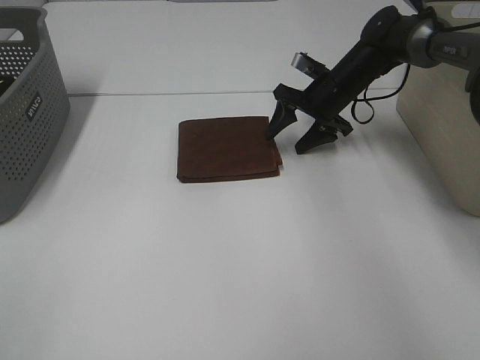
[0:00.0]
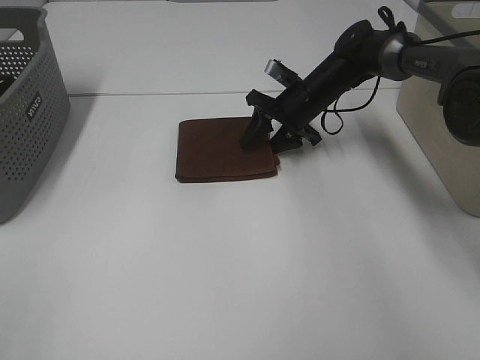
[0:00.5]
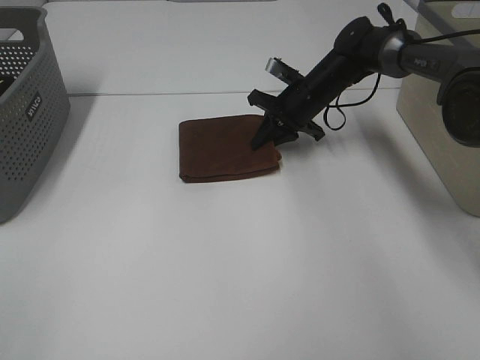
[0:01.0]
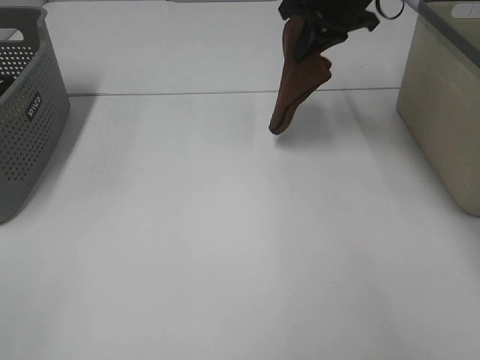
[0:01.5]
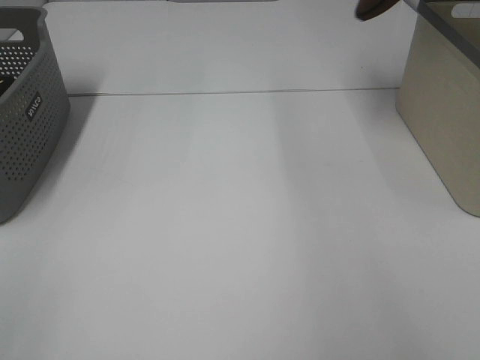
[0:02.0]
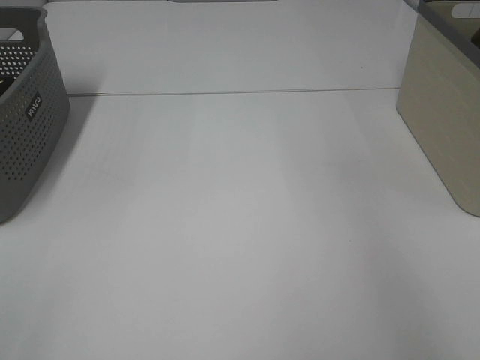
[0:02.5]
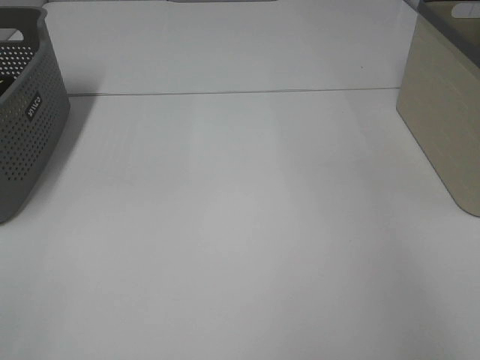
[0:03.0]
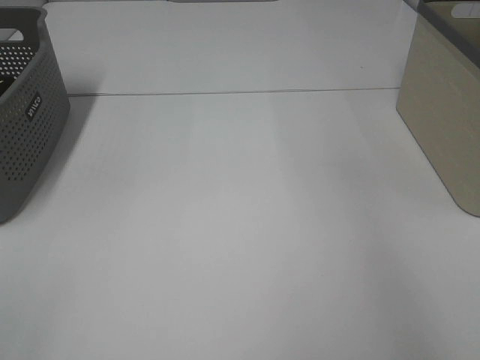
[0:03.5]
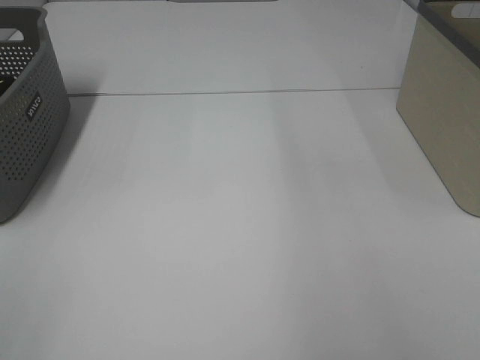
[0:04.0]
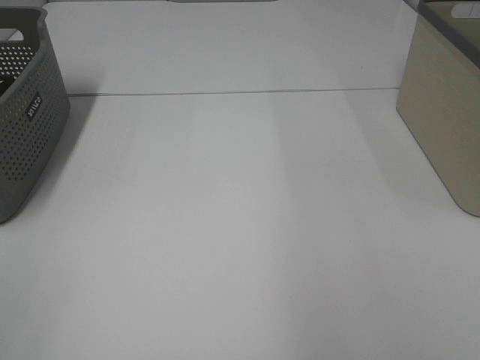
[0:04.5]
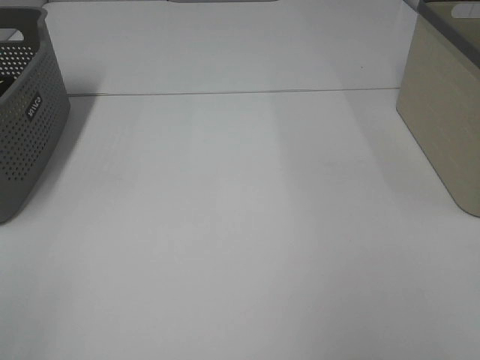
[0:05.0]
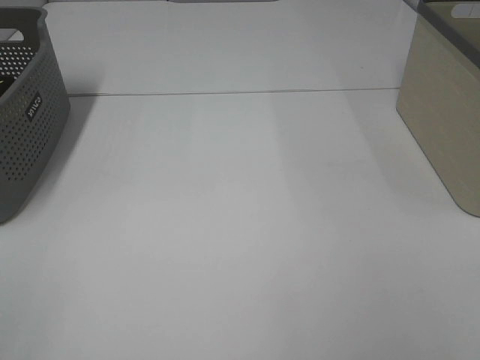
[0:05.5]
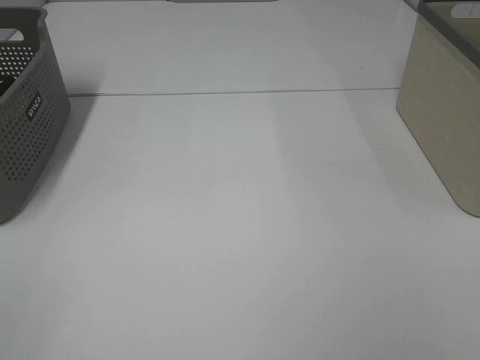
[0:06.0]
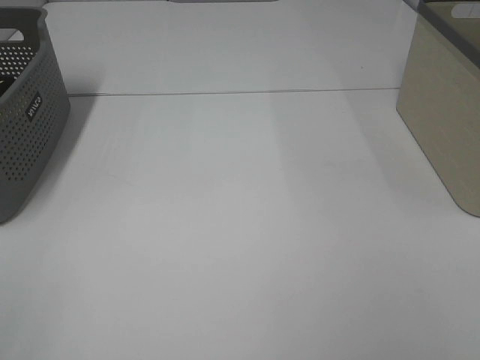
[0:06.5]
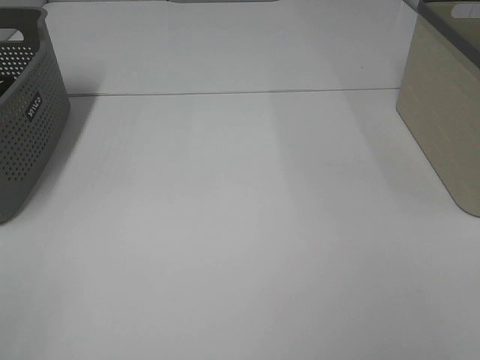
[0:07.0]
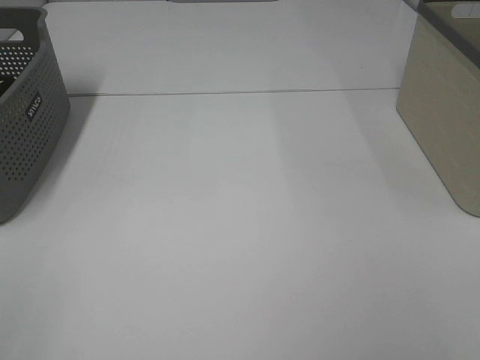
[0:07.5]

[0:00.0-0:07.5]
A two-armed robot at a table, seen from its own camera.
Step, 0:01.0 to 0:03.0: Right hand: place the brown towel in right basket.
0:00.0 to 0:02.0: The right gripper is displaced upward by approximately 35 cm, and closes its fingers.
0:02.0 to 0:04.0: The right gripper goes to the right and returns, about 15 cm each way, and opens up.

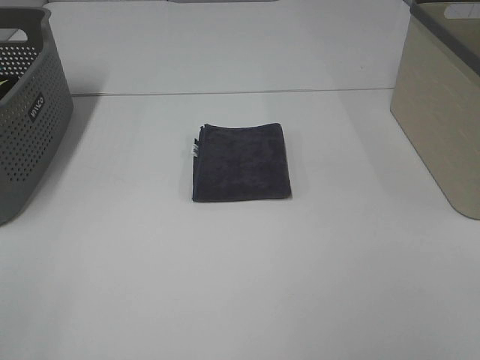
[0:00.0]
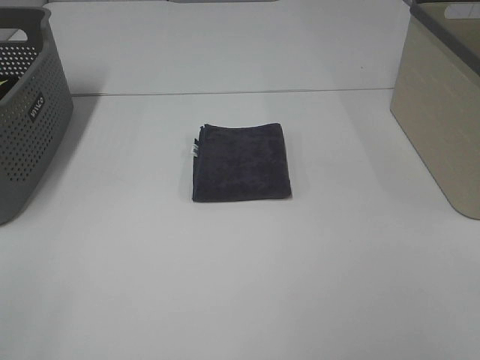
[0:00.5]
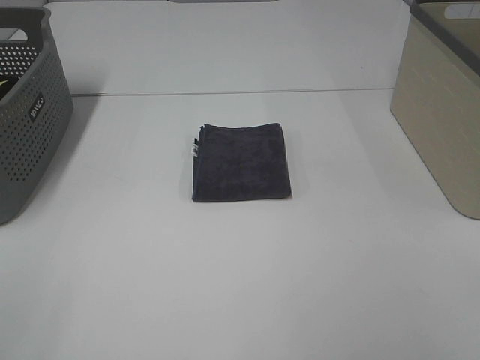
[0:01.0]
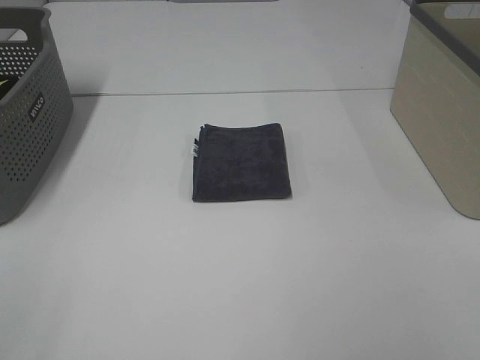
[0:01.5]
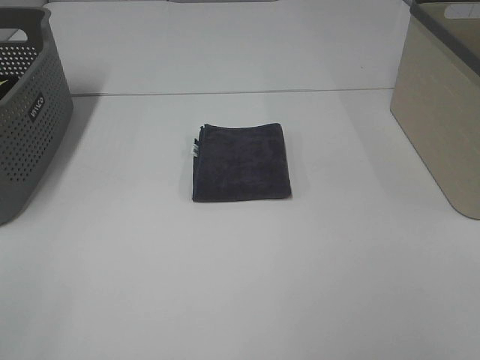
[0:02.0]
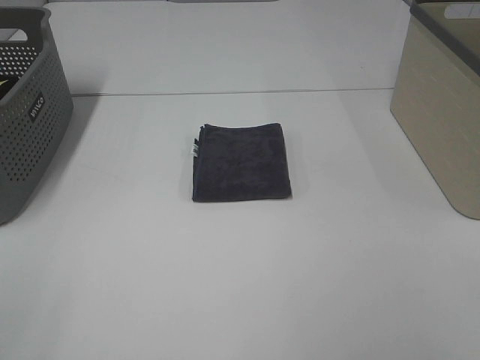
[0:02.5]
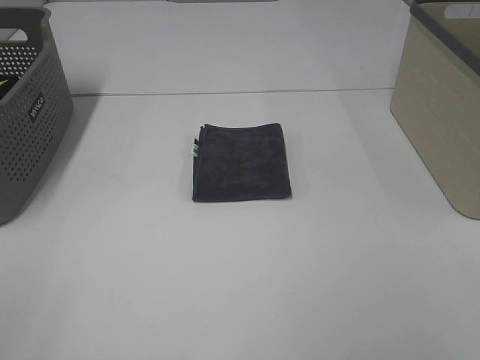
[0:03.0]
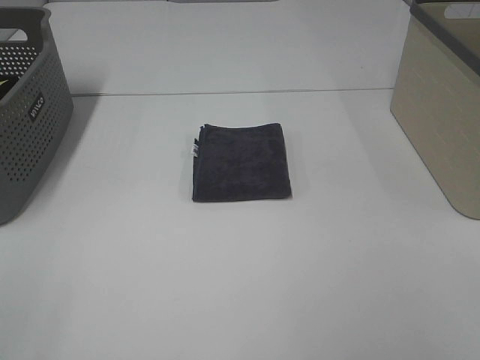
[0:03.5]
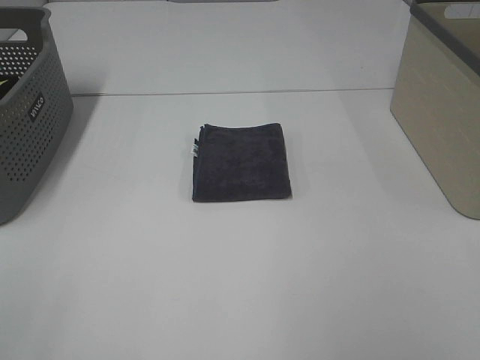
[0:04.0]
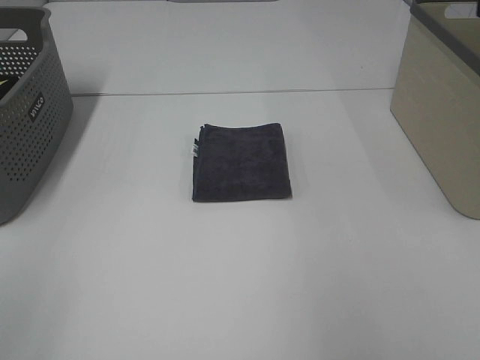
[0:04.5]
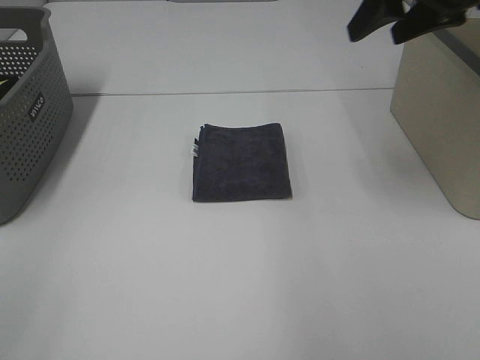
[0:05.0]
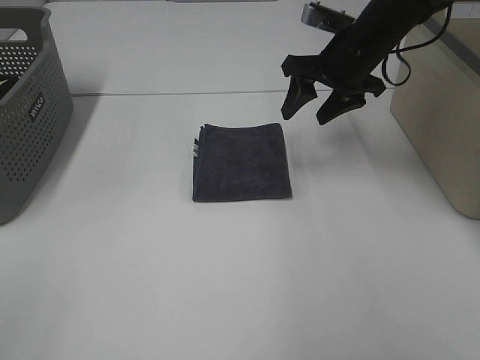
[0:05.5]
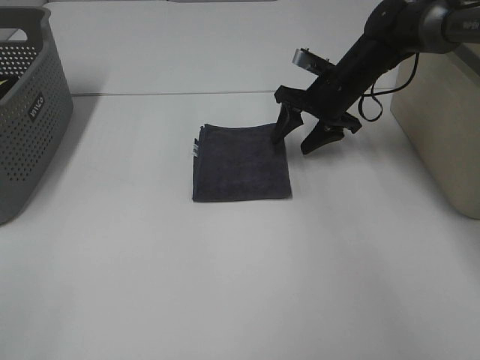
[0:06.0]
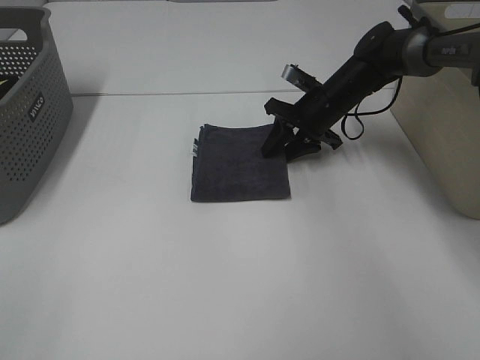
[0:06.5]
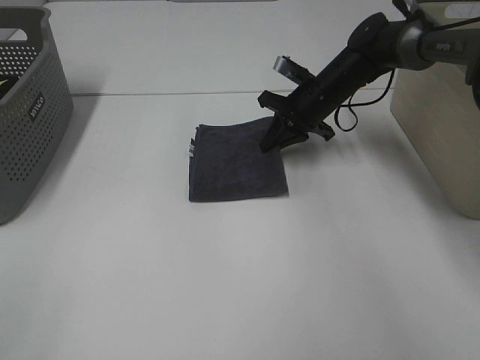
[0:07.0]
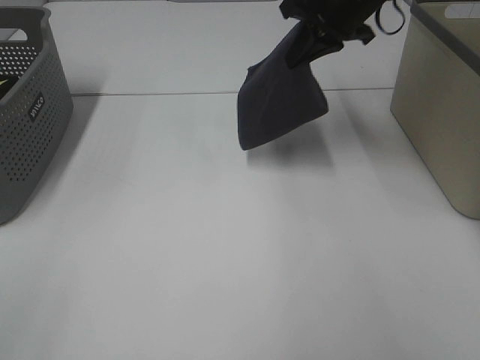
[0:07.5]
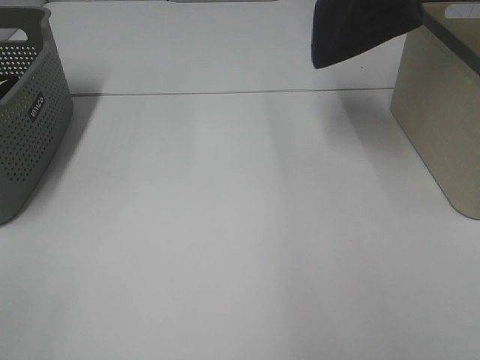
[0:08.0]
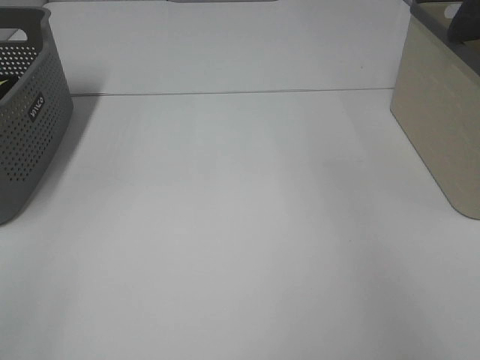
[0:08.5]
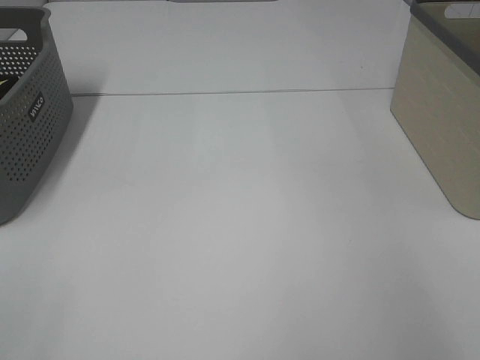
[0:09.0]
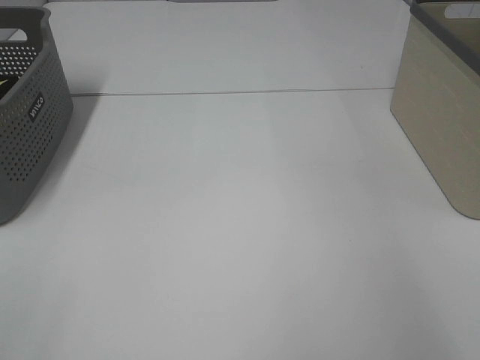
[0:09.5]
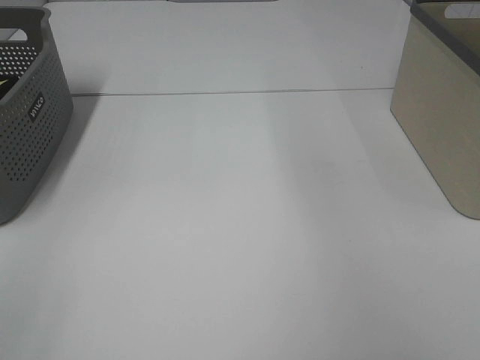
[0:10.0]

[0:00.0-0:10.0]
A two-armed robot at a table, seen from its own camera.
Step, 0:00.0 to 0:06.5: Right hand: grab the folded grey towel.
Step, 0:07.0 to 0:09.0: Right hand: place the grey towel in right basket.
0:00.0 to 0:02.0: Both grippers stay put.
0:04.0 to 0:06.0: The right gripper is displaced forward and downward by some 50 cm.
0:06.0 to 0:08.0: The right gripper shifts about 30 cm upward, and closes its fingers.
0:08.0 to 0:10.0: The right gripper travels to the right by some 5 cm, and opens its fingers.

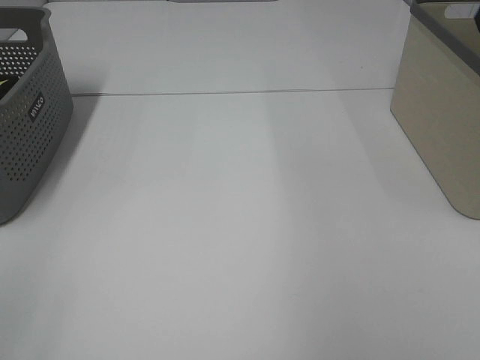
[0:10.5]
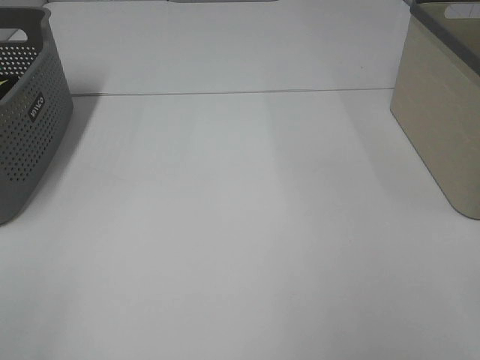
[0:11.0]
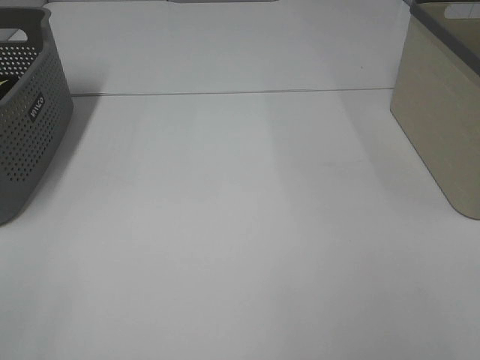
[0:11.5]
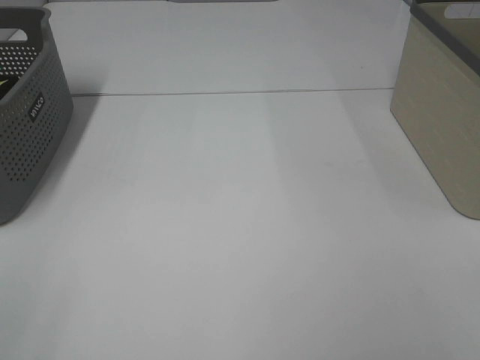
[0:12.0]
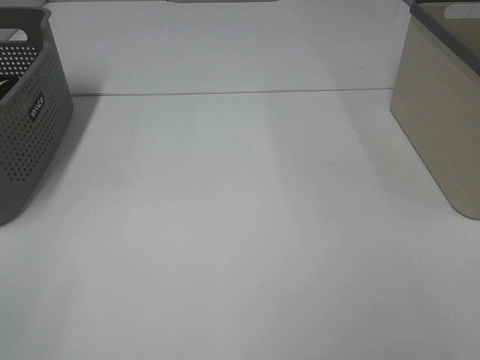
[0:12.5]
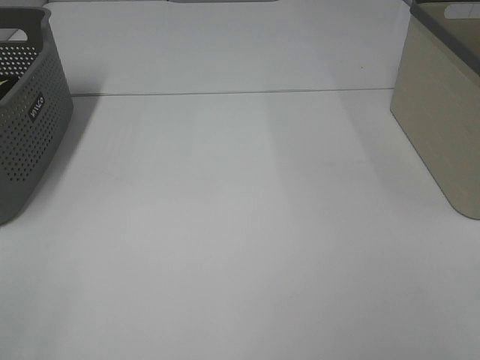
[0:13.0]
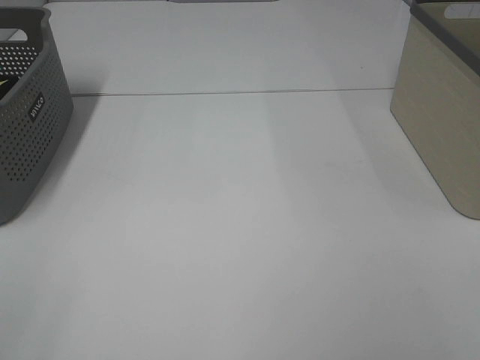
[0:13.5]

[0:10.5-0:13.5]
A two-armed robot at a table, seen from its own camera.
0:12.0 to 0:13.5: Both grippers stay put.

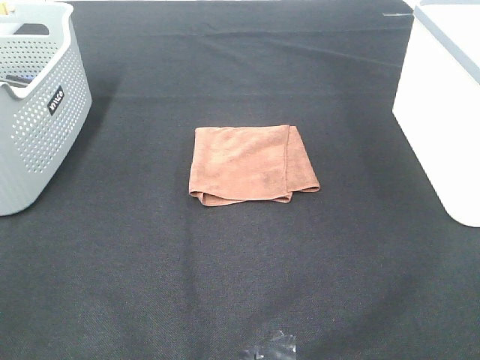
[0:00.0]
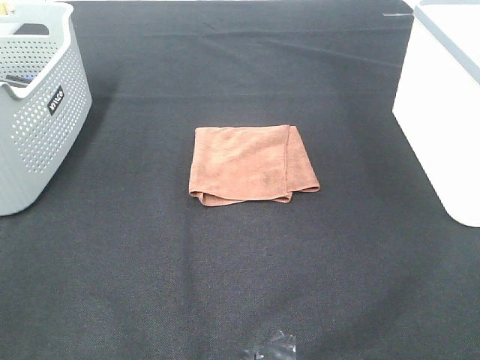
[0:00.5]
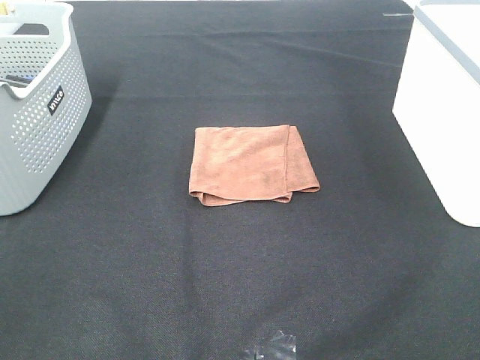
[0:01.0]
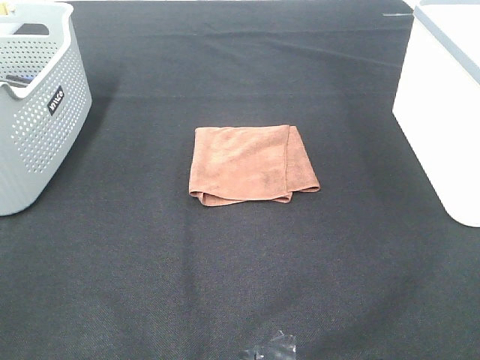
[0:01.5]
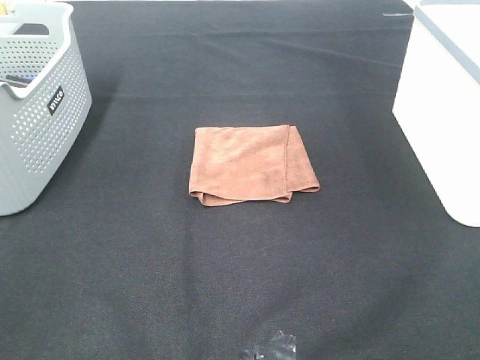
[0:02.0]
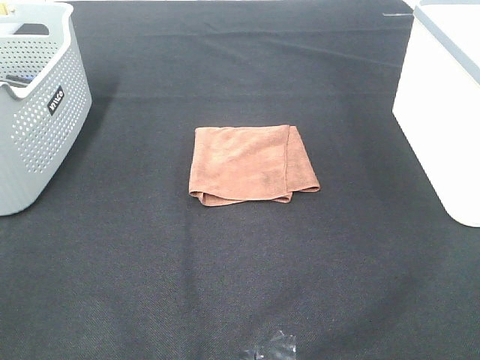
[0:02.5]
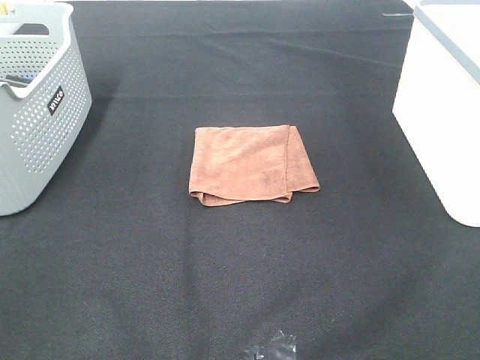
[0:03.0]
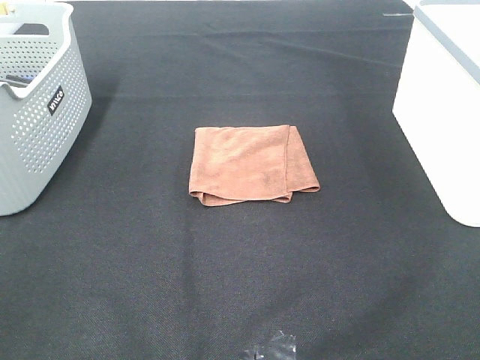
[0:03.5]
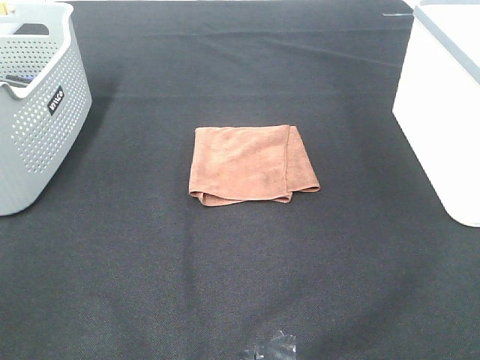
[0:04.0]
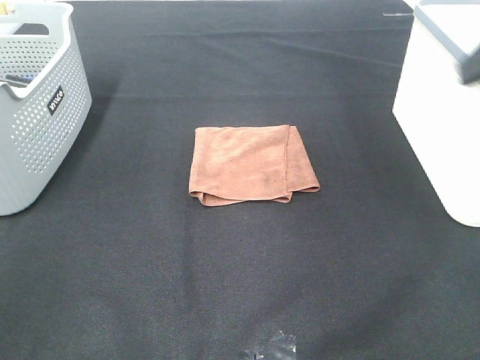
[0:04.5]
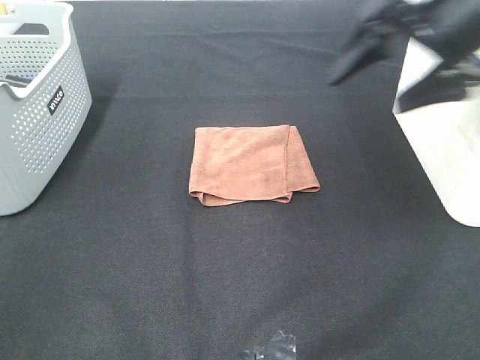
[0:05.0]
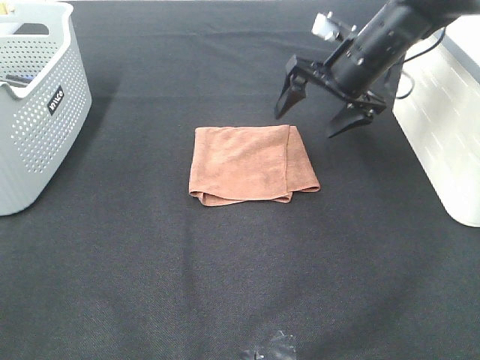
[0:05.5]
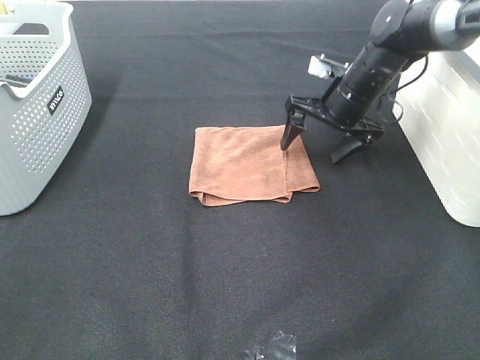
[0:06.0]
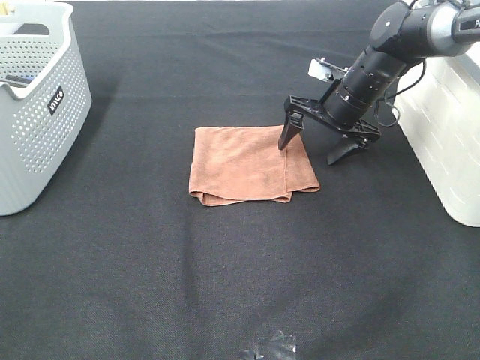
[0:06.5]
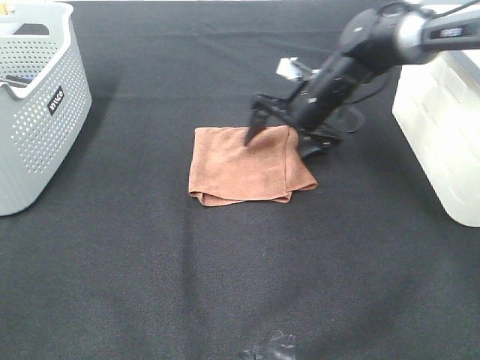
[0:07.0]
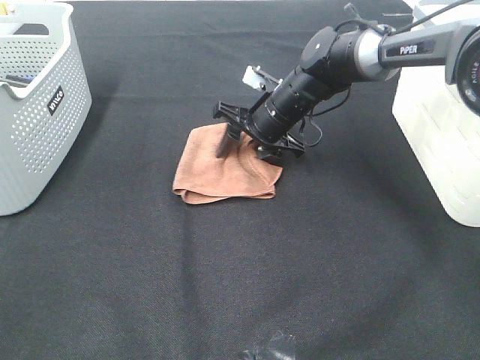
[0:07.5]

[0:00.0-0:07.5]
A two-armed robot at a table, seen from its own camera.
0:00.0 to 0:02.0: Both grippers stay about where they are.
0:04.0 to 0:05.5: The right gripper moves forward and downward, approximately 40 cm.
0:05.5 to 0:07.5: The right gripper is displaced to the left and downward by roughly 15 cm, and closes.
